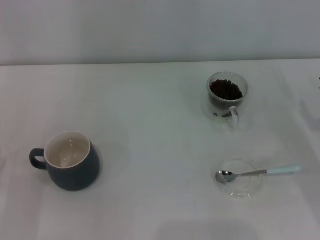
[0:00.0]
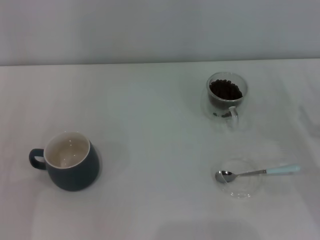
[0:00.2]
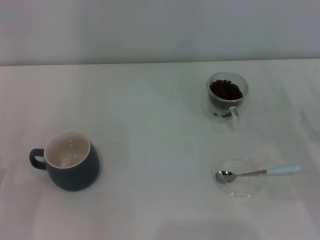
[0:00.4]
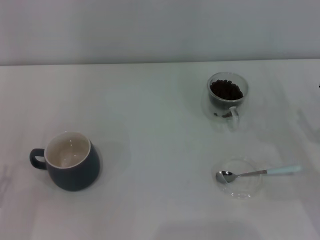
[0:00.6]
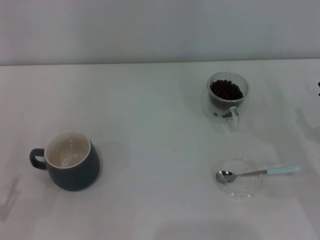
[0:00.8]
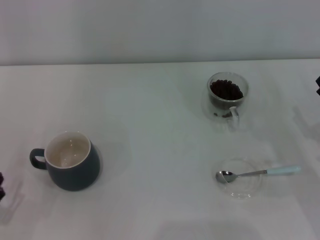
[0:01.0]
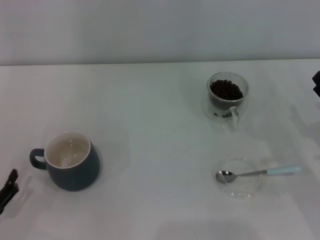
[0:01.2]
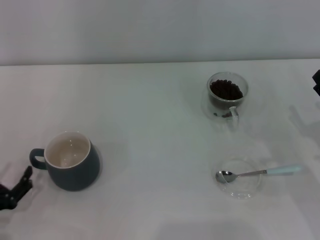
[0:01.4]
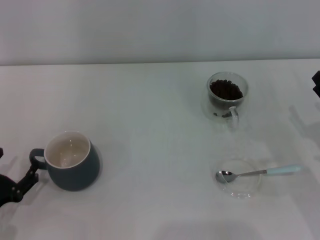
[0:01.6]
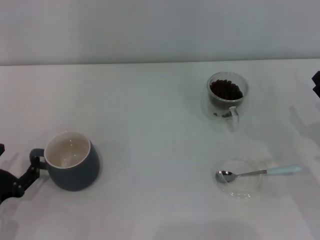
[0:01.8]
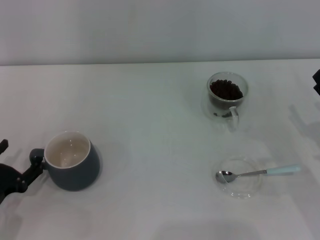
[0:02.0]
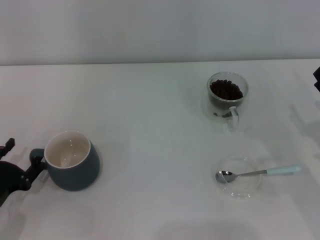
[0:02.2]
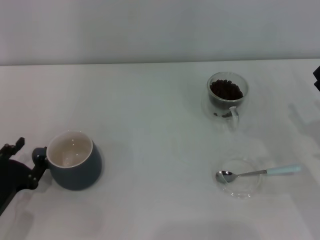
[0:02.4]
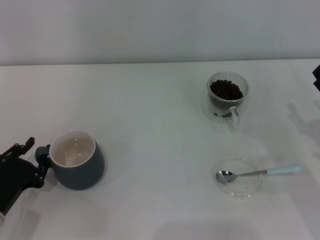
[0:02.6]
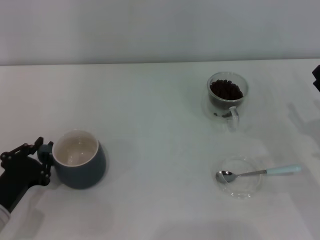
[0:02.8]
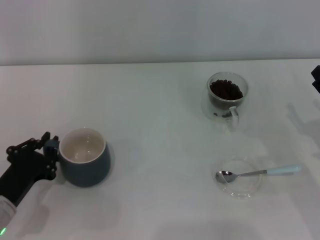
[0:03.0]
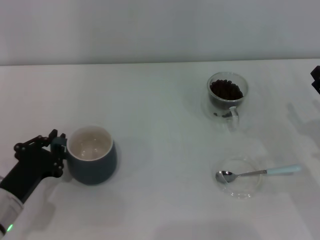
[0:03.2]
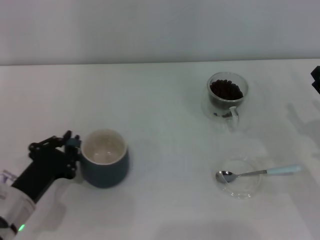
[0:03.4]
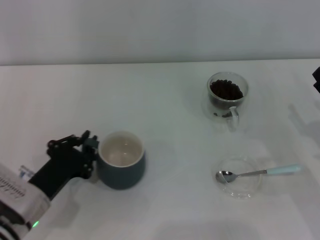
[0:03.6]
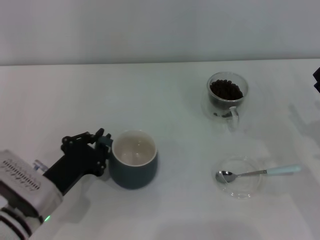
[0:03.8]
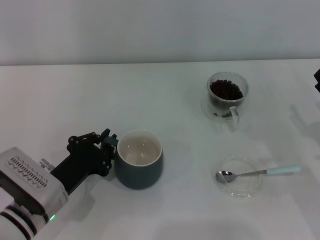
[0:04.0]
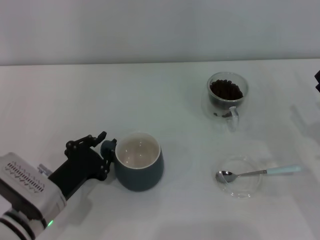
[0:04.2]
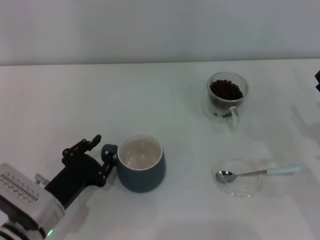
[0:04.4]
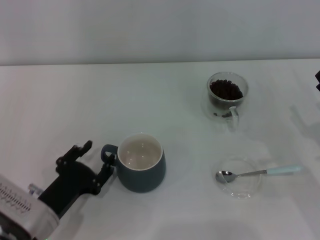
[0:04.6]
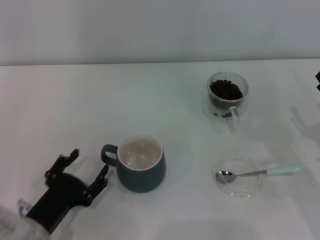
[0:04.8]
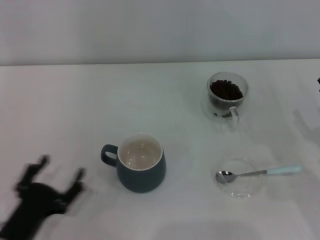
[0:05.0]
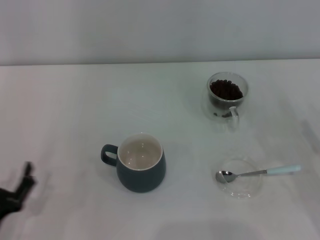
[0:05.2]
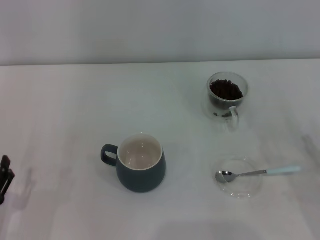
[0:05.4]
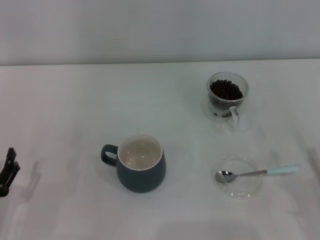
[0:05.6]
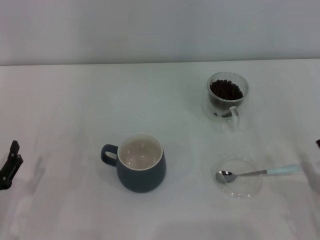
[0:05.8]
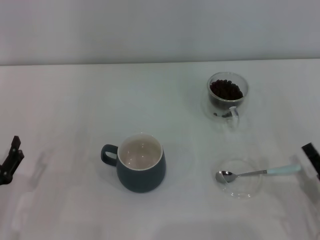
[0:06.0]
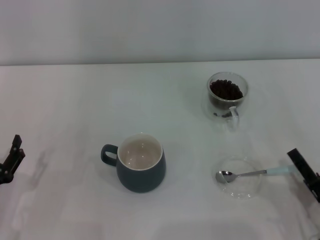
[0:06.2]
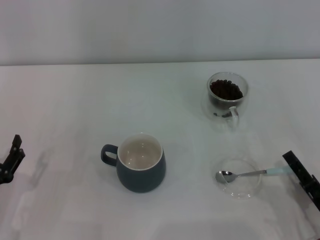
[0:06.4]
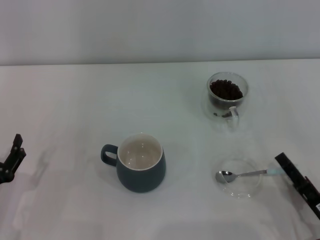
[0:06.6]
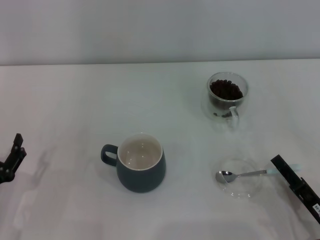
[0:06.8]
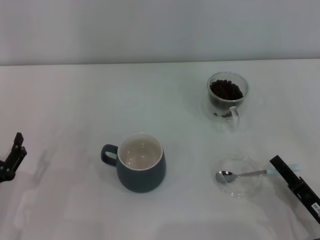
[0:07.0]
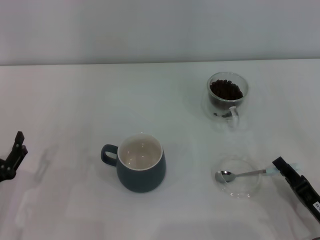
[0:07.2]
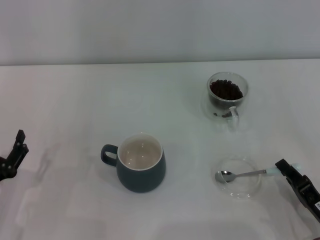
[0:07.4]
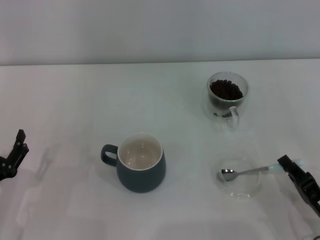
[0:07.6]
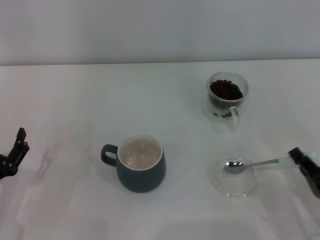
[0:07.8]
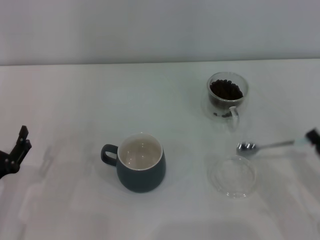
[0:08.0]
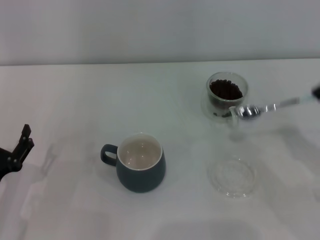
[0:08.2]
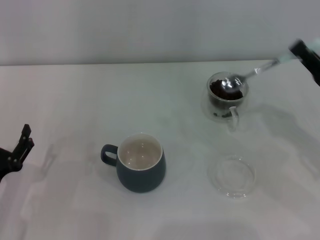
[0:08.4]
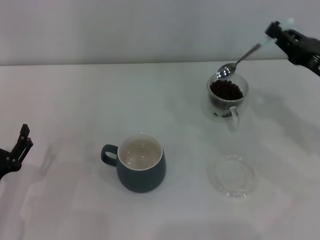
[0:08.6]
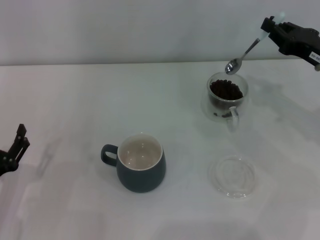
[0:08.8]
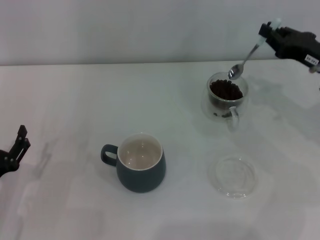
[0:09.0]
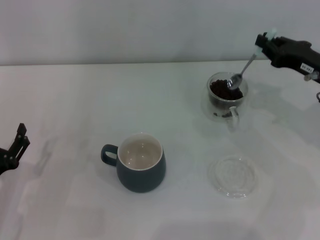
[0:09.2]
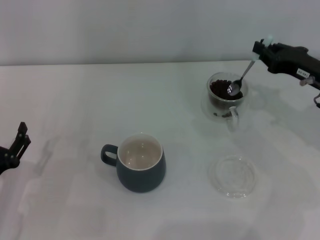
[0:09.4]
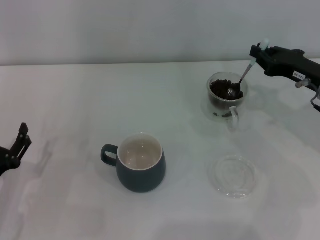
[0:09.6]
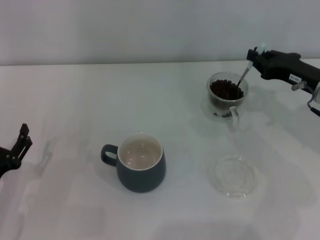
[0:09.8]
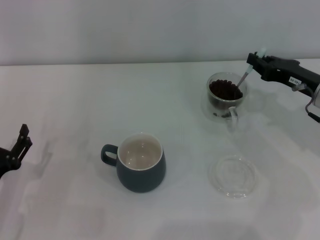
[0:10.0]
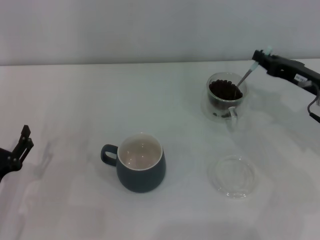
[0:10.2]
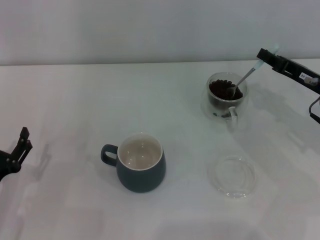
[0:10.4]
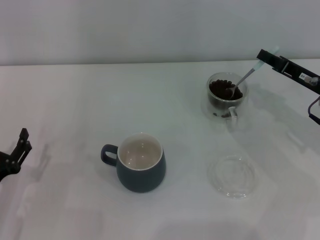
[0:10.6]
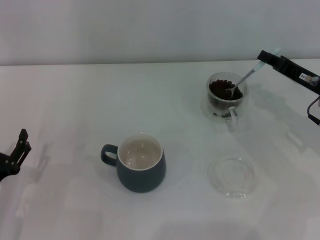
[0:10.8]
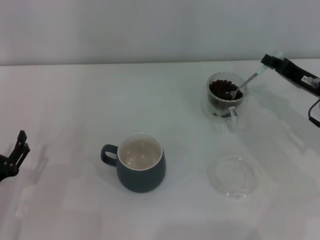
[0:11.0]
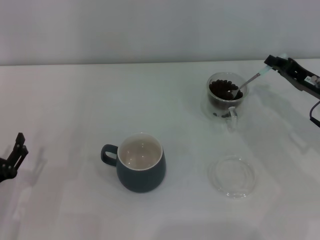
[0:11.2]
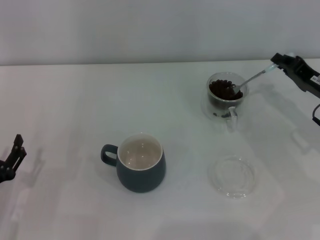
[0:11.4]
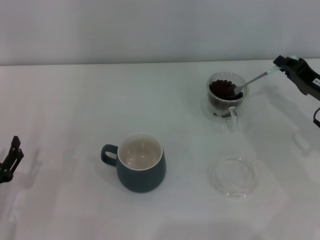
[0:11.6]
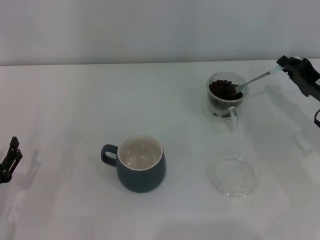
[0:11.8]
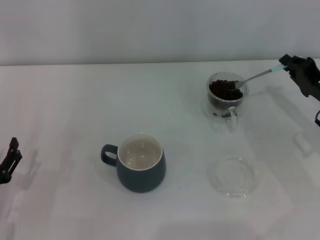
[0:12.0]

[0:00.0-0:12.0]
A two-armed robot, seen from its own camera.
Task of the whole recording: Use a blue spoon to take out the coffee beans from the glass and pour them into the gray cup.
Step, 0:00.0 to 0:04.8: Move the cup to the center of view with the left gripper.
Step, 0:05.0 to 0:07.8: Pick up the spoon with the right gripper.
0:01.6 to 0:03.0: The left gripper moves roughly 5 cm, and closes.
0:03.0 to 0:04.4: The left gripper travels to the right by about 5 cm.
0:04.4 to 0:06.0: The right gripper moves backward, to the left and downward, approximately 15 cm, while the left gripper heads to the left, covering approximately 10 cm, and opens its fingers.
0:06.0 to 0:07.6: The right gripper closes its fingers.
0:07.6 to 0:09.0: The right gripper heads forward and upward, covering some 25 cm.

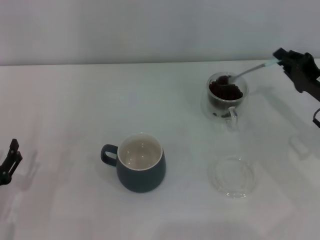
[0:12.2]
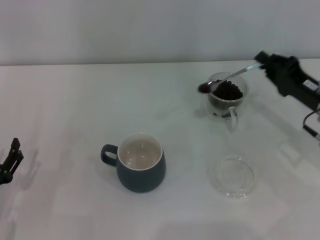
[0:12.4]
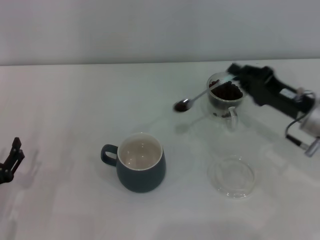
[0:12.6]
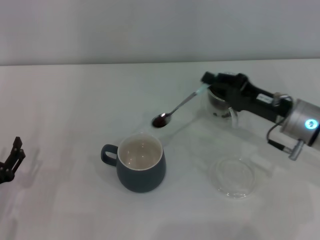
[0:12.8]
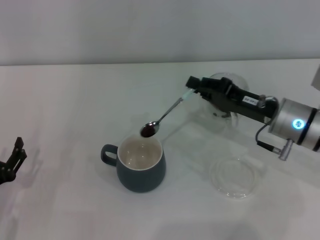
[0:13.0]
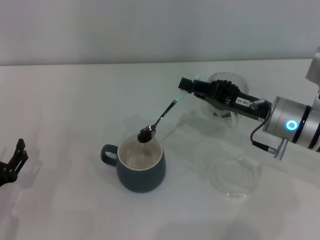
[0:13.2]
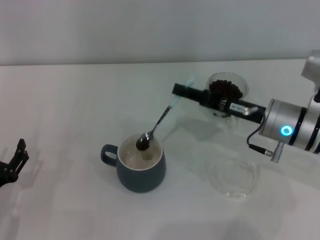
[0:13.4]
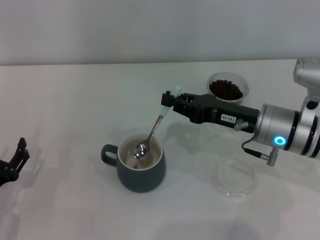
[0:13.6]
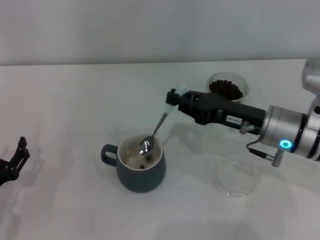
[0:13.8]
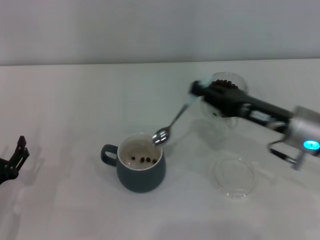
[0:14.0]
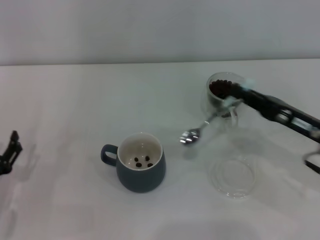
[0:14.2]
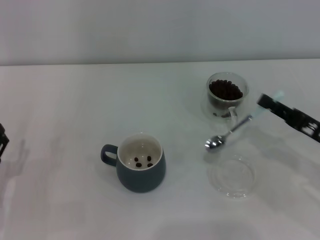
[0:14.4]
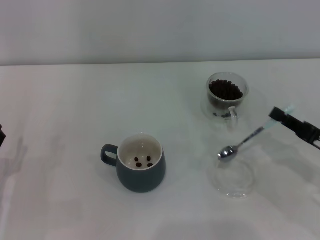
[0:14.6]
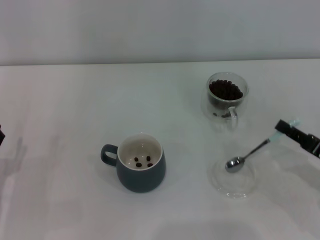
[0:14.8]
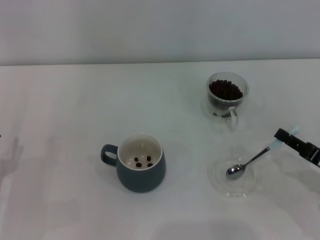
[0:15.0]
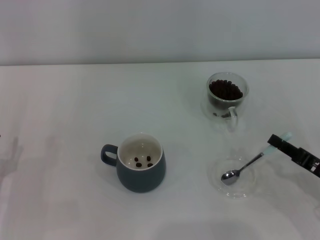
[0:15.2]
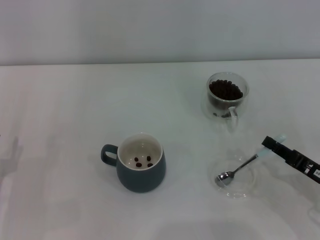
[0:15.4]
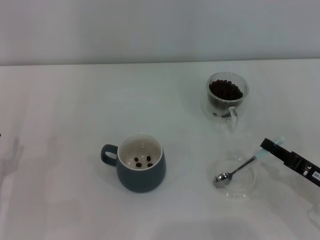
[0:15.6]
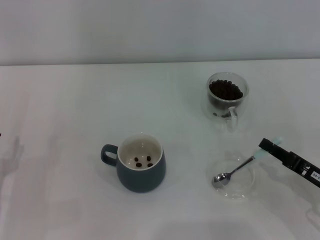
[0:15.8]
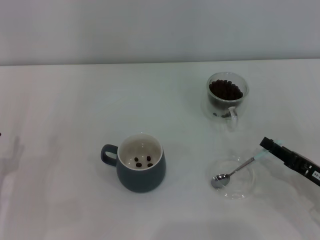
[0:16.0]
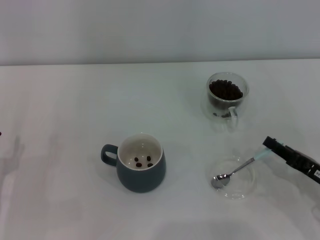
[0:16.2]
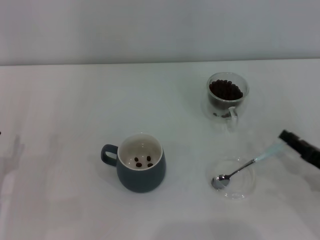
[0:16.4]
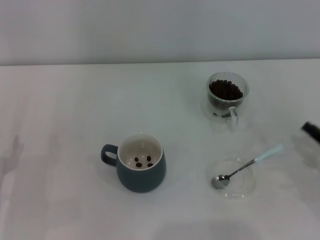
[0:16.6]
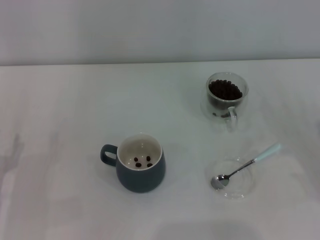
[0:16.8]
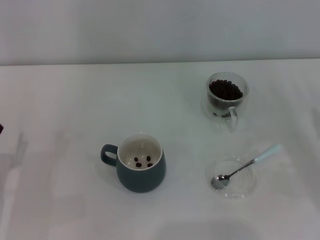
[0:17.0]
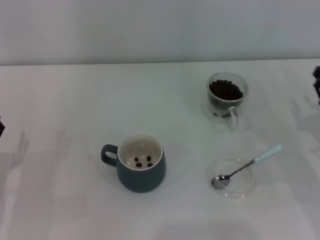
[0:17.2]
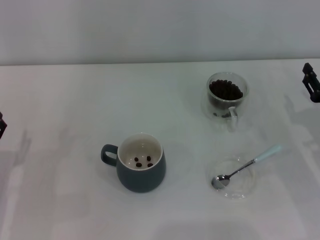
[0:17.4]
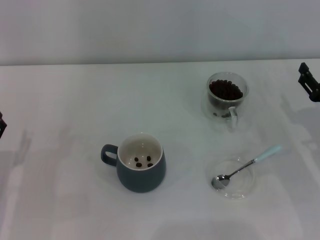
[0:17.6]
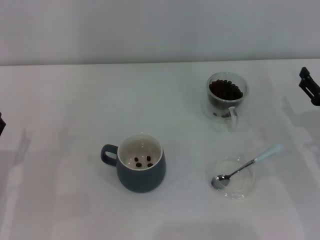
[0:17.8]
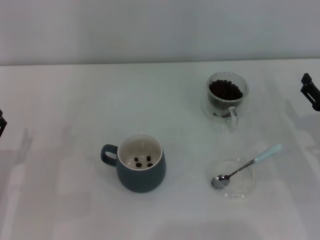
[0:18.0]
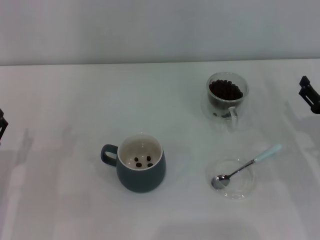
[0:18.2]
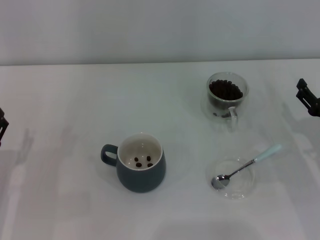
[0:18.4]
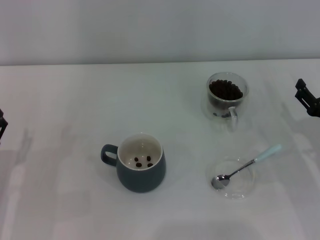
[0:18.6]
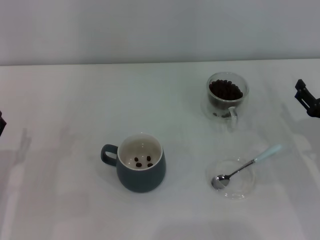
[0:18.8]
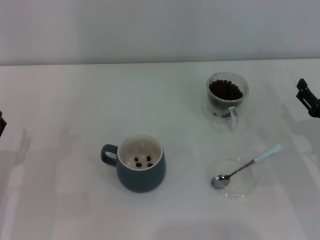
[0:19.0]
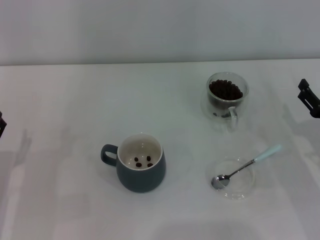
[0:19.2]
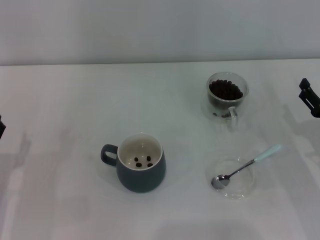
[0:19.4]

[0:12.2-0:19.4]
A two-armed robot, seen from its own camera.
Task of the whole recording: Use a blue spoon to take out the coffee beans from the glass and pour them into the gray cup.
Step, 0:14.0 to 0:16.4: Place the spoon back in its original place with the right gripper.
0:12.2 to 0:13.6: The right gripper is displaced to the left by some 10 cm.
0:13.6 to 0:15.0: The right gripper is displaced to the right, backward and downward by approximately 20 cm.
0:15.0 to 0:16.6: The grippers stay close to where they were, moving slightly.
0:16.6 to 0:18.0: The right gripper is displaced forward by some 5 cm, and opens its fingers.
0:18.0 to 0:19.4: Neither gripper changes place.

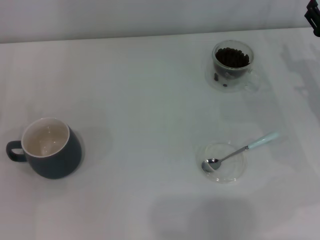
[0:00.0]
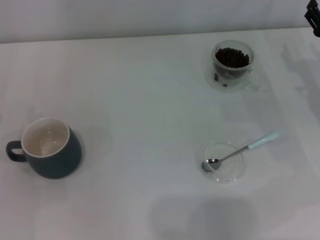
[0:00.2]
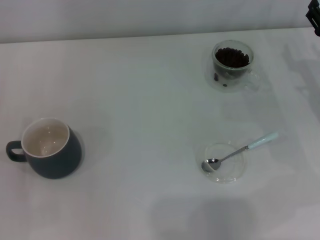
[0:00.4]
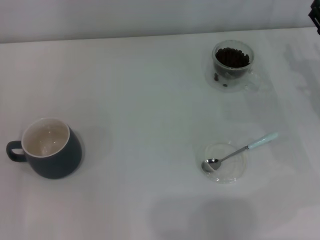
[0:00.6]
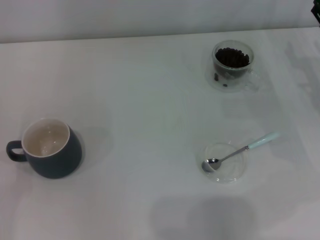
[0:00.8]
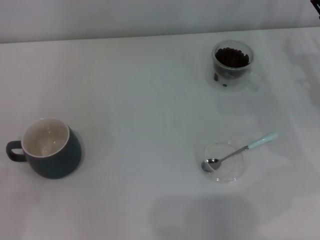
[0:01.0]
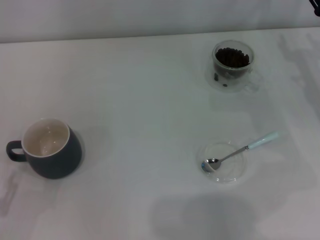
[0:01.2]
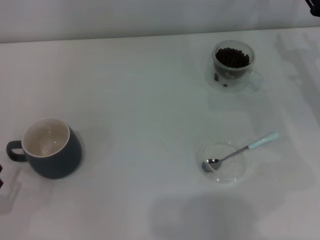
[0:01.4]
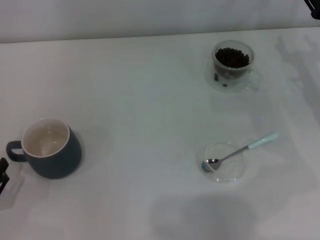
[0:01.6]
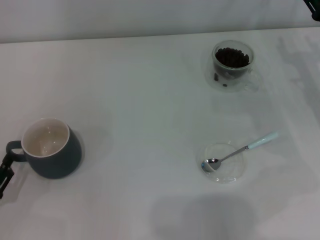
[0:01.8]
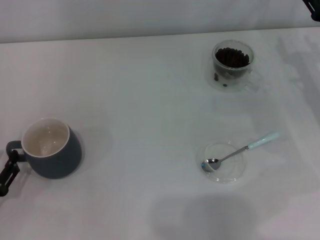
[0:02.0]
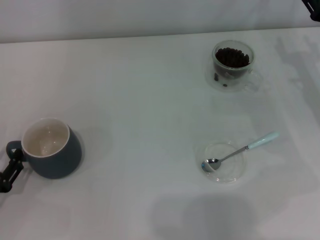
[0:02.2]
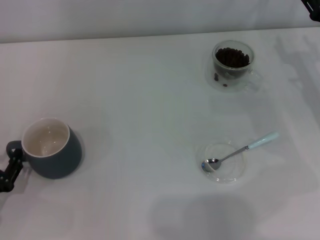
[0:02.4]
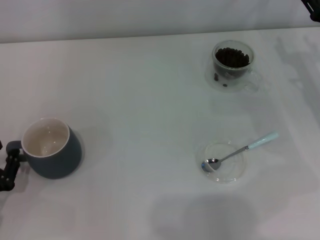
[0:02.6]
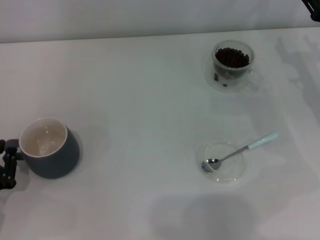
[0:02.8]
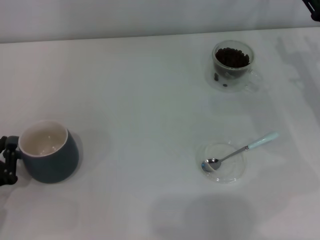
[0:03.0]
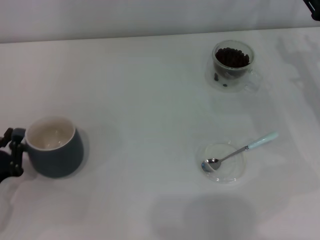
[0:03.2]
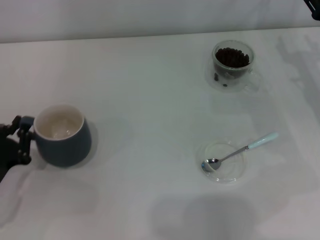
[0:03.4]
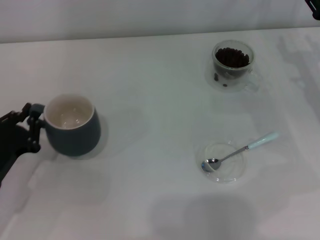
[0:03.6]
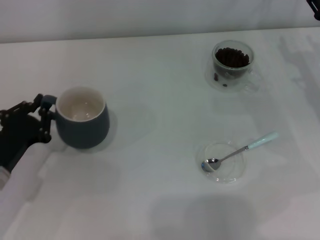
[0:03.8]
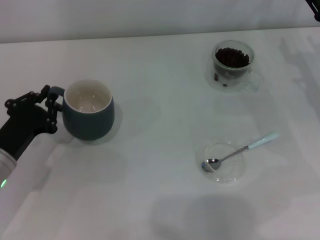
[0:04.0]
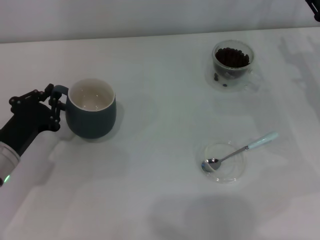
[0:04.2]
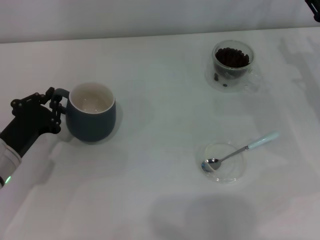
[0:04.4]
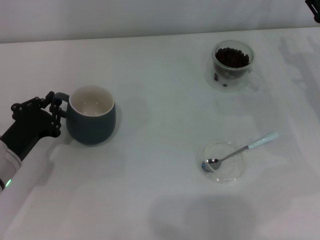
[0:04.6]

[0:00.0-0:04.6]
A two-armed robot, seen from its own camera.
Task of the whole recording: Use a blue spoon to take out the coffee beans from the glass and pour them into the gray cup.
0:00.0 to 0:01.6: The left gripper goes approximately 10 cm backward.
0:01.6 to 0:03.0: The left gripper closes up.
0:03.0 to 0:04.6: The left gripper goes some 10 cm forward and to the right.
